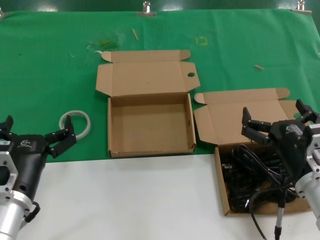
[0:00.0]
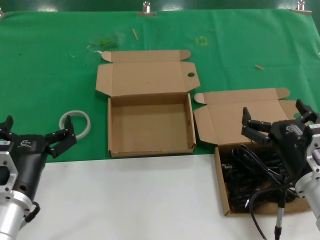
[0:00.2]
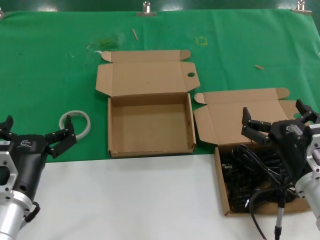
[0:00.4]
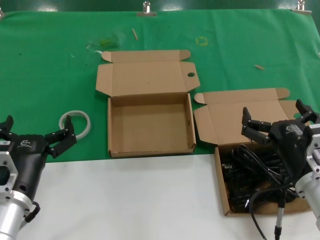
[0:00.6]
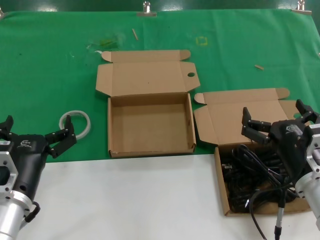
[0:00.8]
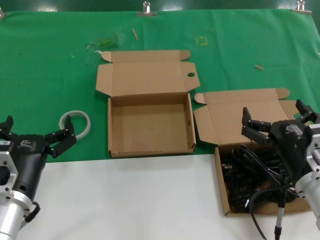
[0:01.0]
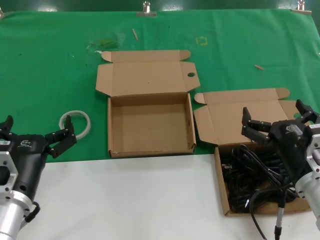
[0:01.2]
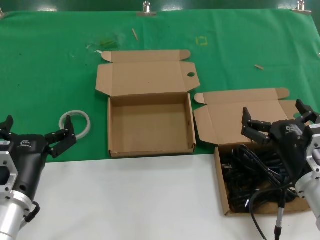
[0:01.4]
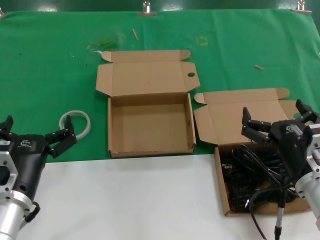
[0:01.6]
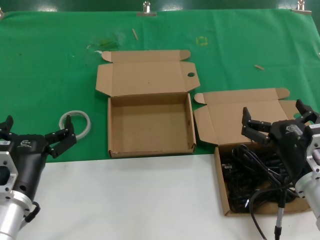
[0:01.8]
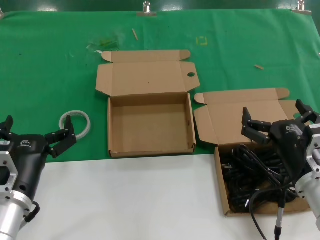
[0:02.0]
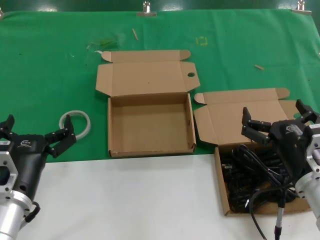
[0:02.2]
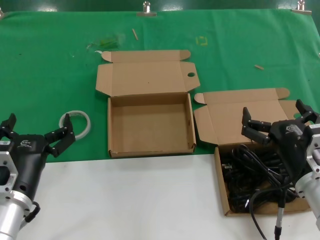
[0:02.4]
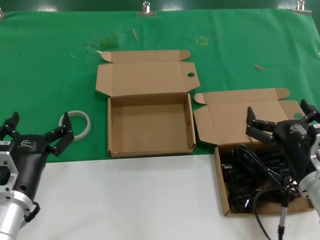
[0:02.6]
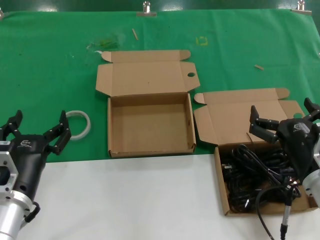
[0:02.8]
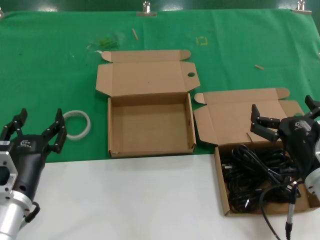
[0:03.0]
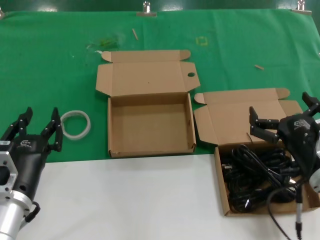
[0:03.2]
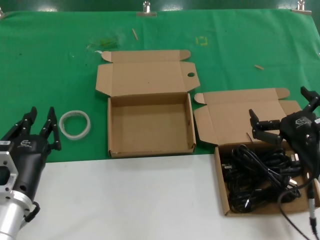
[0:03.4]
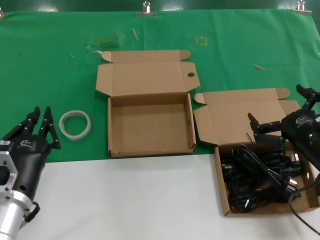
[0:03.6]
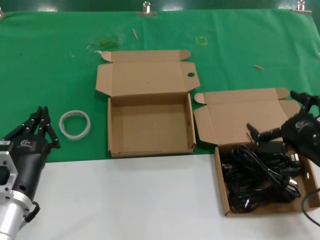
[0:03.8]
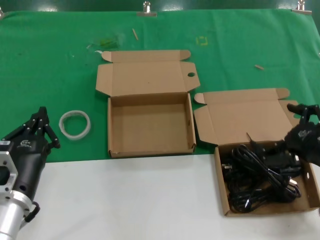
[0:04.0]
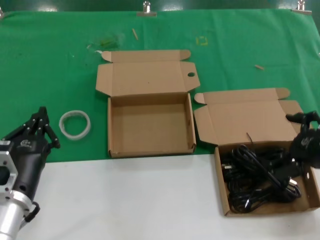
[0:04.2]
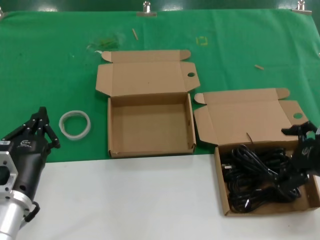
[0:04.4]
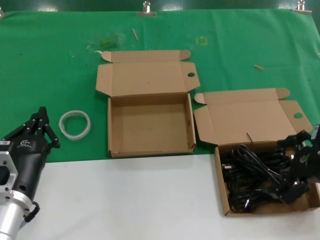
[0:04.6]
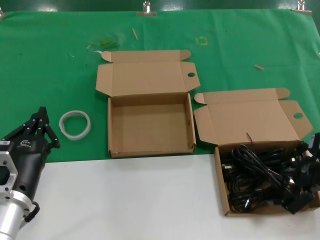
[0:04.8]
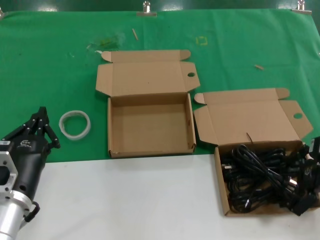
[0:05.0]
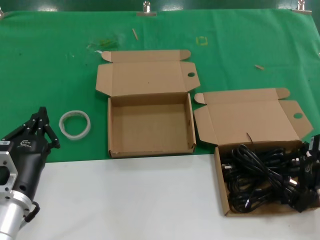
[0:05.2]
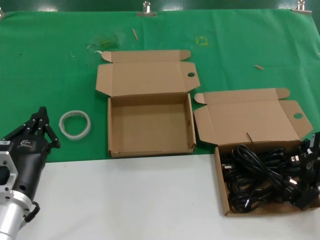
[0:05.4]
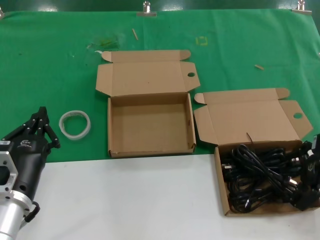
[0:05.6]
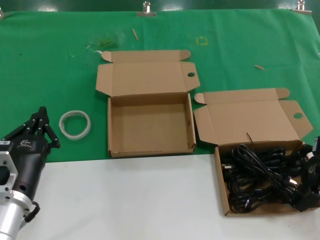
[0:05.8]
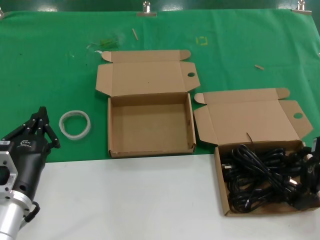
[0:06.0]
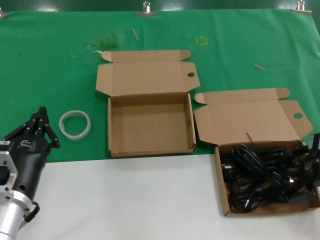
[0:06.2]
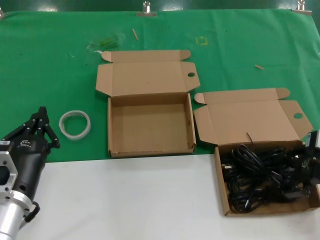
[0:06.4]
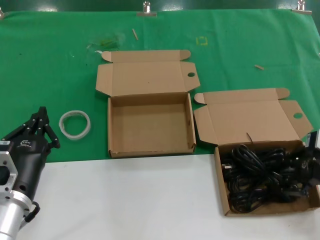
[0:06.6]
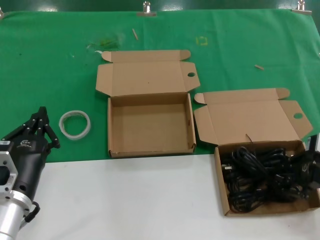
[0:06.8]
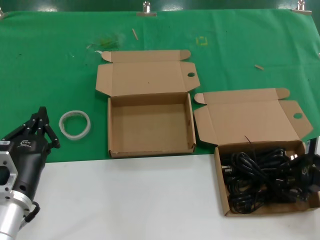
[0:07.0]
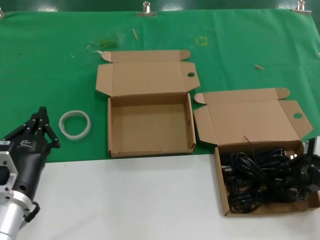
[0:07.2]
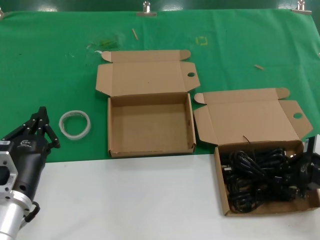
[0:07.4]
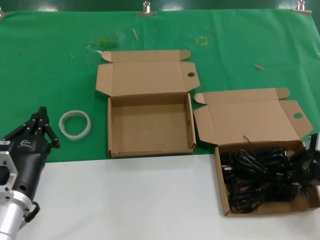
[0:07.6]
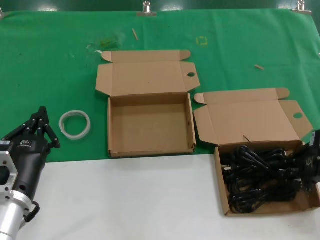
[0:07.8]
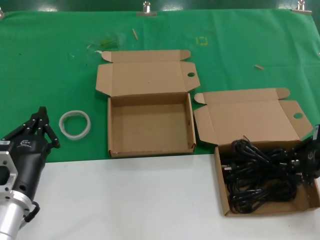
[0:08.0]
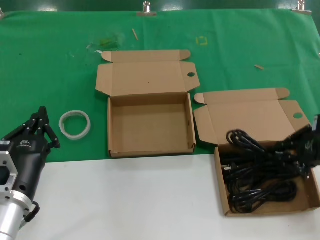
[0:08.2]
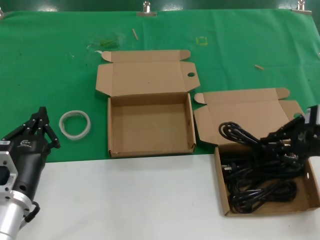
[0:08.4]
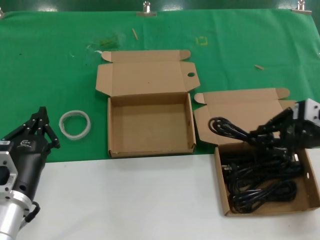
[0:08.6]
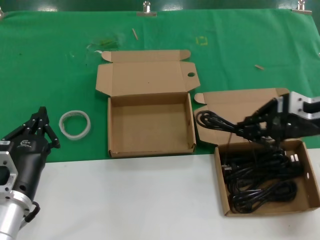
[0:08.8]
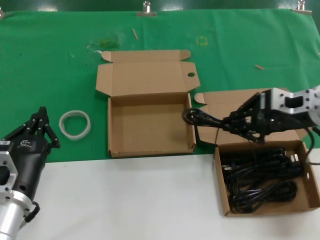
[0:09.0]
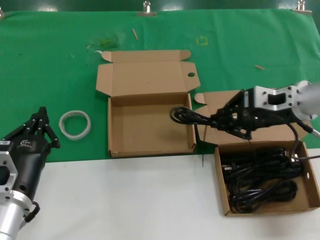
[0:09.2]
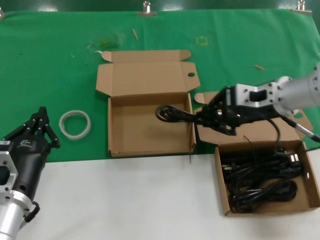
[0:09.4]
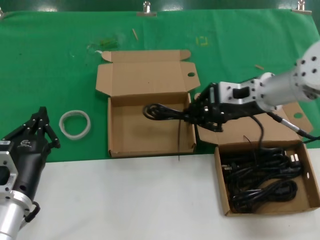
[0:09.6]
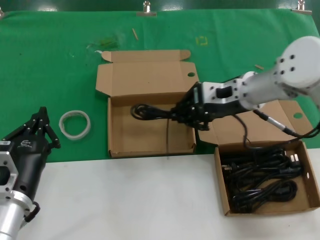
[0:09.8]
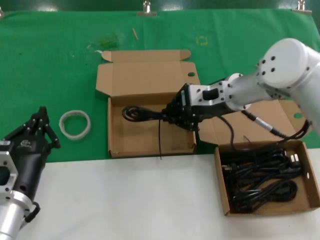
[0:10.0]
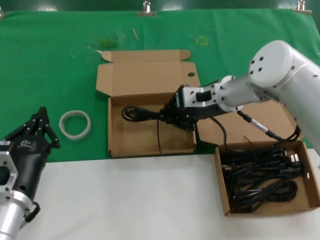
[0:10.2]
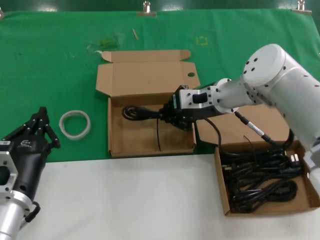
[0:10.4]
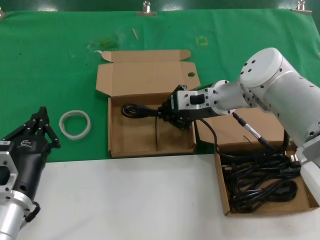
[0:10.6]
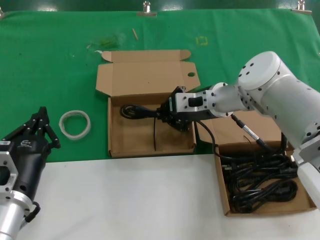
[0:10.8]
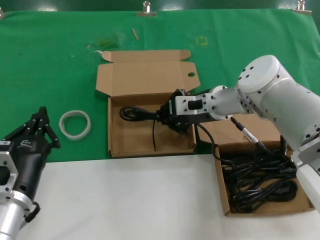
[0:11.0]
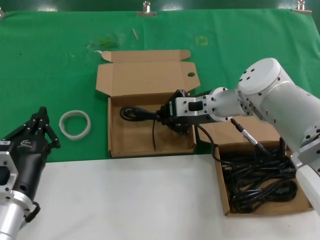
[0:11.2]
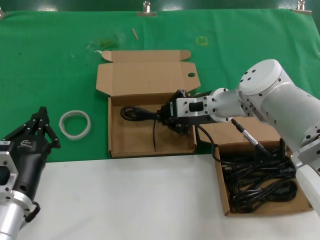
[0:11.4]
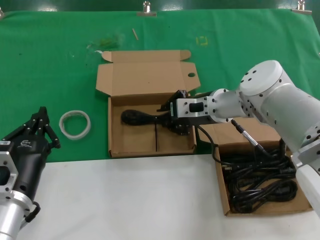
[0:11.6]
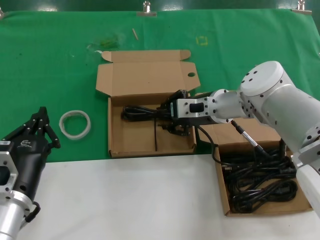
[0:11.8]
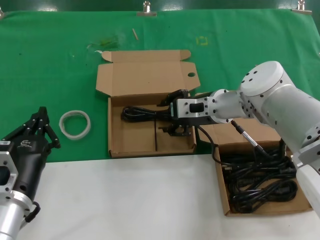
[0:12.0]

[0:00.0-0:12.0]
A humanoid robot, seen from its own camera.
Task of the whole recording: take the parts from the box containing them and put them into an empty box.
Step, 0:00.0 to 0:06.8: Grasp the data cable.
Step, 0:07.0 to 0:11.6: Place the data cable in the another box.
0:00.0 to 0:01.6: The two hands keep their place.
0:01.6 to 0:03.0: The hands move only a little.
0:03.0 to 0:04.4: The right hand is displaced to the right and upward by some 15 cm.
0:04.4 to 0:06.0: The right hand moves roughly 5 cm.
0:06.0 to 0:07.6: There are only small adjustments of the hands.
0:07.6 to 0:09.0: The right hand heads to the left, upward and forward, covering approximately 10 cm.
0:09.0 to 0:10.4: The right hand shifts roughly 20 cm to the left and forward.
0:10.4 to 0:12.0: The hands make only small movements.

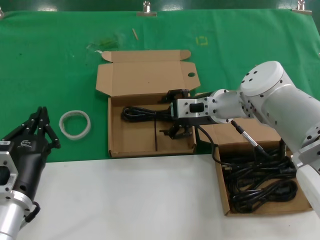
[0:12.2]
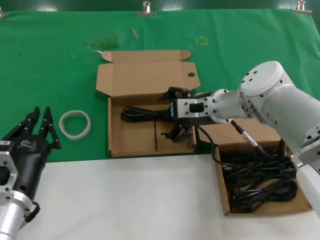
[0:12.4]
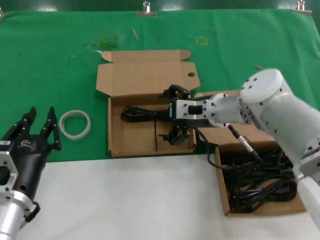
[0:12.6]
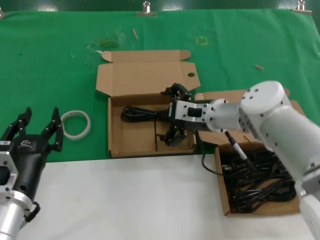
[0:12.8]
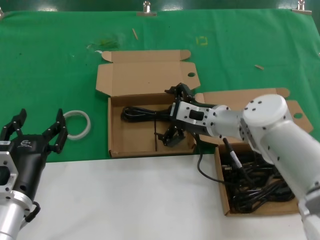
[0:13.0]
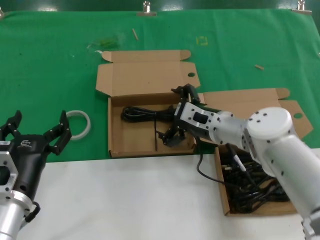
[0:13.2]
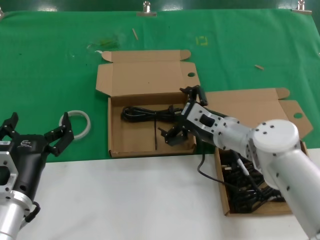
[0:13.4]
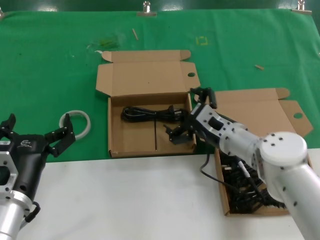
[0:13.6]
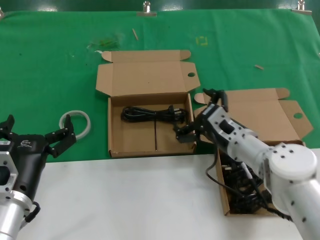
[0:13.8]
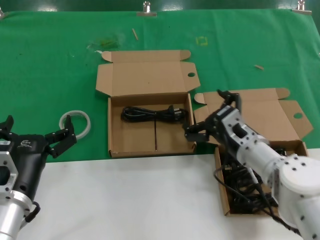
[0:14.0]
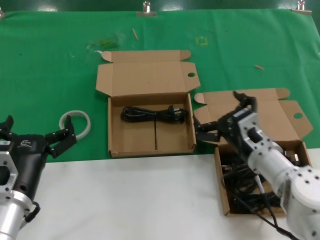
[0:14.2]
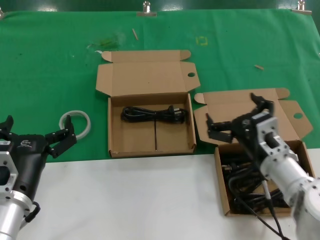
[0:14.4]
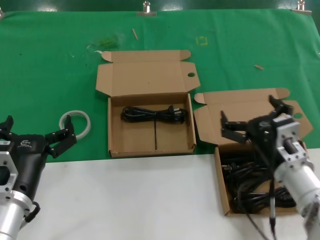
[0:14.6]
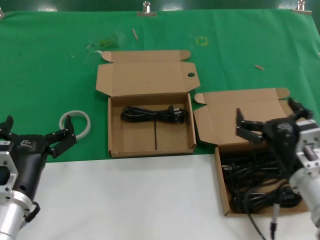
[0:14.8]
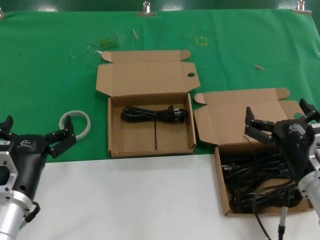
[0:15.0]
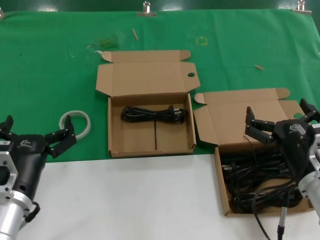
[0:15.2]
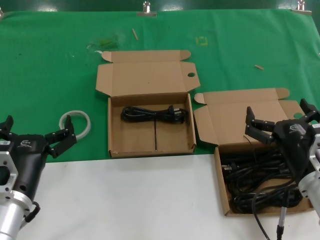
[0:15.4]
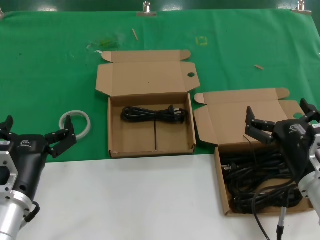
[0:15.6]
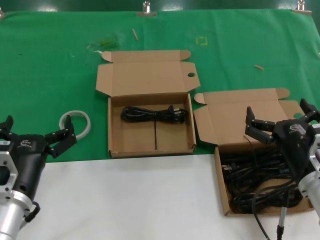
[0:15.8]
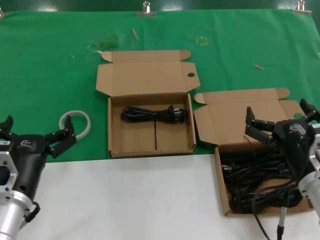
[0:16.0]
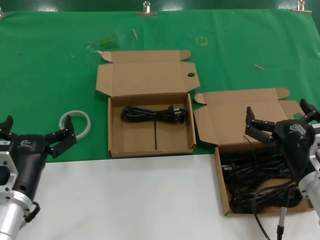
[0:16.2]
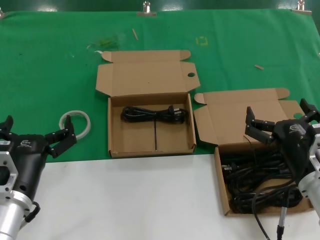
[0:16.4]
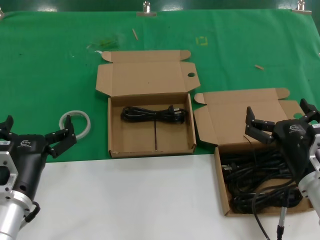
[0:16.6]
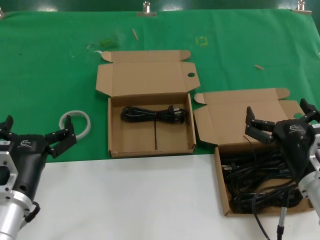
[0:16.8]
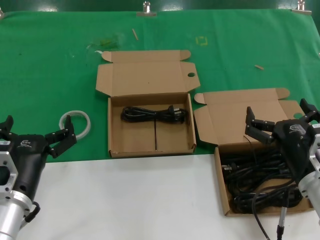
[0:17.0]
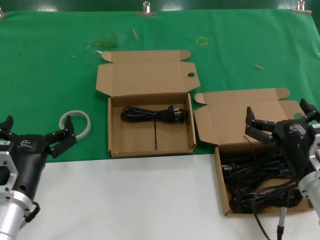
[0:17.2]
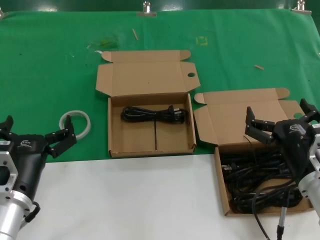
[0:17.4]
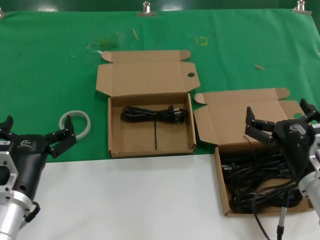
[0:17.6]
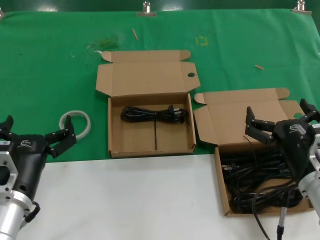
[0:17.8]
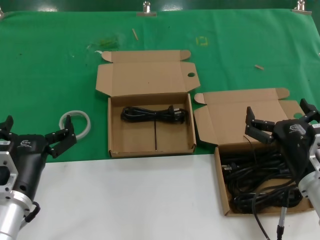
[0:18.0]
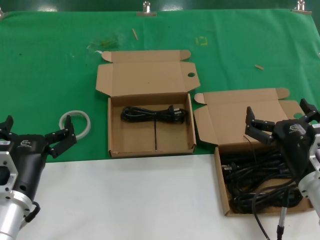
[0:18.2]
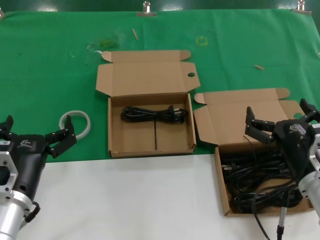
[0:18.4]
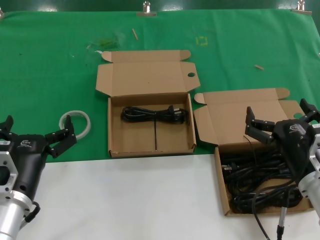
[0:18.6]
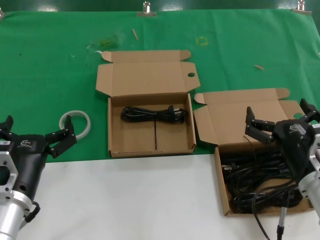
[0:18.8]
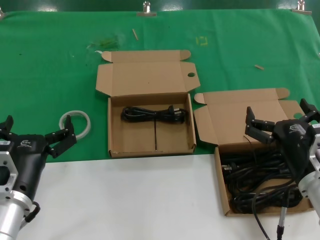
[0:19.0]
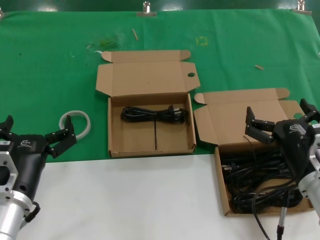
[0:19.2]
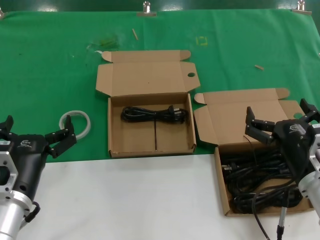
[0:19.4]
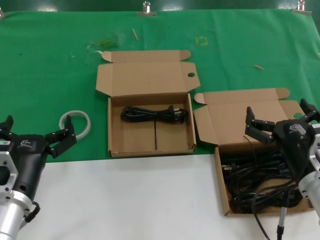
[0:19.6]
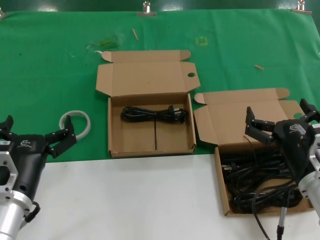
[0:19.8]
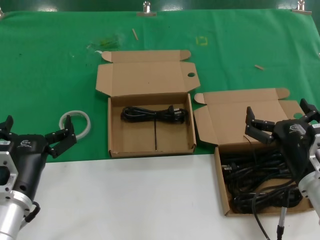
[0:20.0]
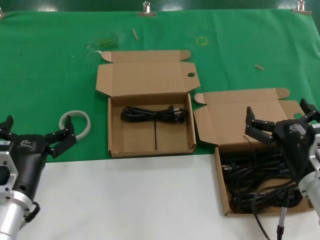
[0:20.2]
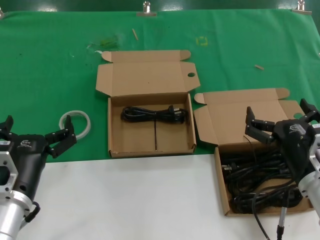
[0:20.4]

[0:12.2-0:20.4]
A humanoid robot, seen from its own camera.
Task of the whole recording: take the parts from the box containing them and put them into an empty box.
0:12.2 to 0:13.8: The right hand goes roughly 10 cm backward and downward.
0:13.8 to 0:15.4: The right hand shifts roughly 15 cm backward and to the right.
0:15.4 to 0:20.4: Both hands stay put.

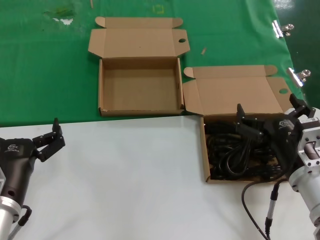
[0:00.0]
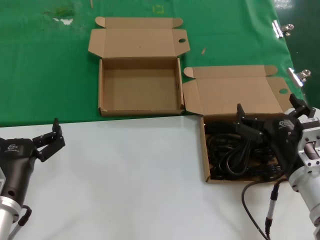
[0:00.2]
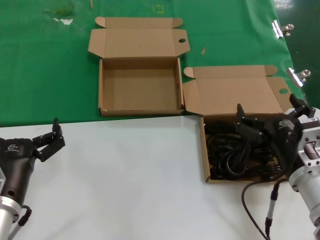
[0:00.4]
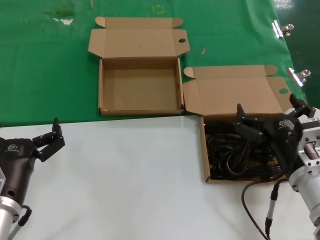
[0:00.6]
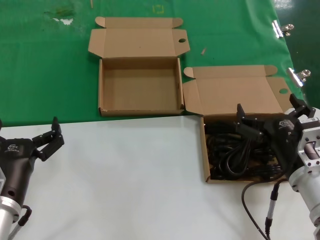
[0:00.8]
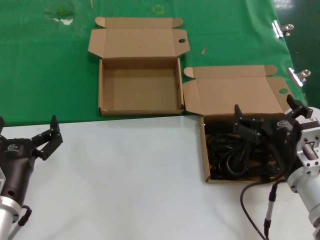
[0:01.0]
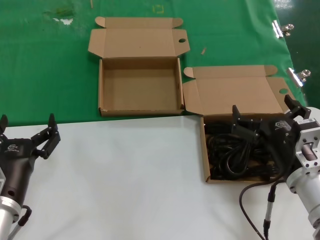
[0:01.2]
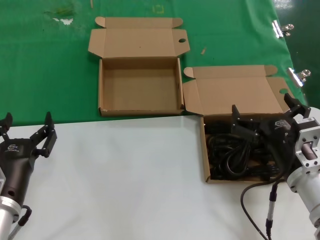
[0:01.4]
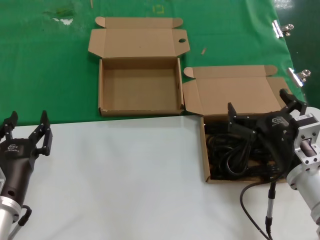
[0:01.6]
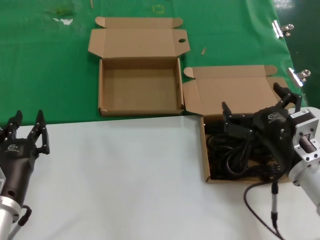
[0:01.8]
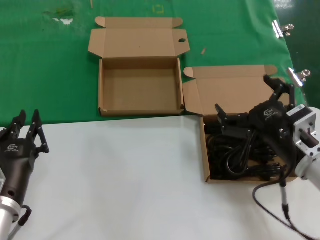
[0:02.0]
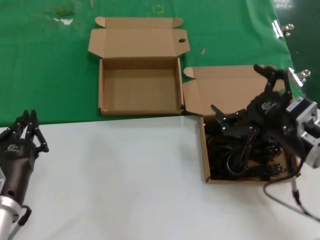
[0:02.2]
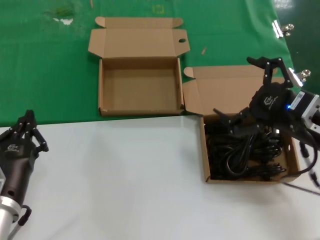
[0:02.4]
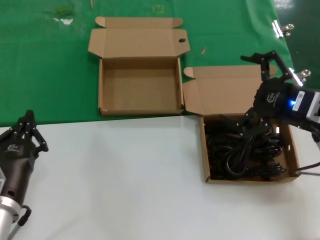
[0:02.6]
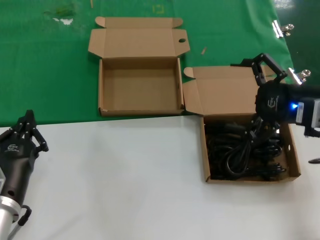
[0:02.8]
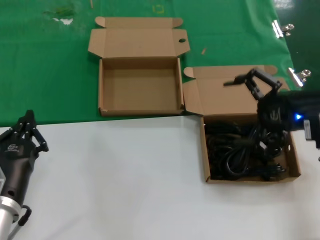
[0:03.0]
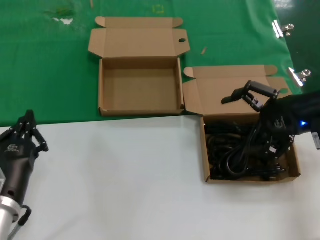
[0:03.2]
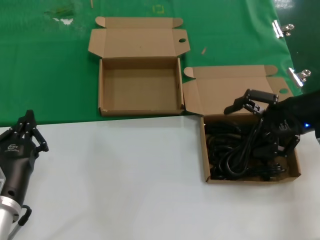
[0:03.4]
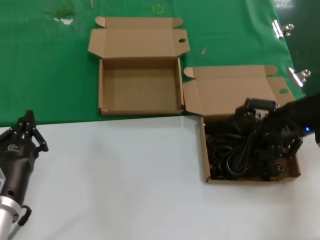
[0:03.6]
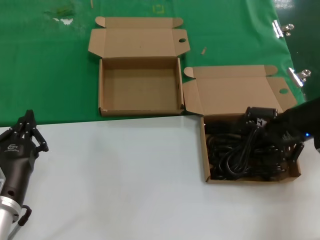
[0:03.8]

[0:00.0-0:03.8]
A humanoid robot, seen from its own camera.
Task of the whole recording: take the parts from the box containing them and put them into an empty box.
0:00.0 to 0:01.2: The two hands keep their place.
0:01.2 to 0:02.6: The right hand travels upward and to the right by roughly 15 cm.
0:02.6 to 0:03.8: The right hand travels forward and to the right by about 10 cm.
